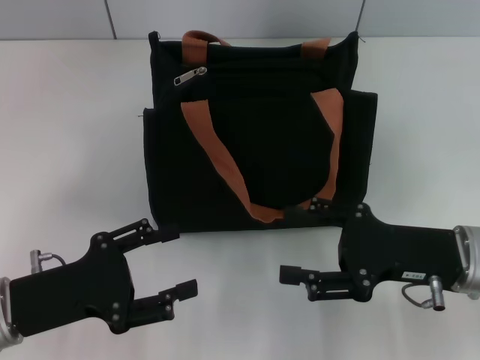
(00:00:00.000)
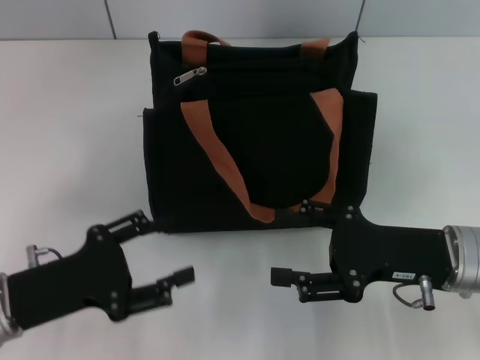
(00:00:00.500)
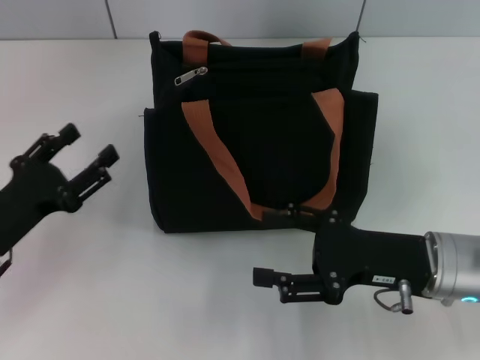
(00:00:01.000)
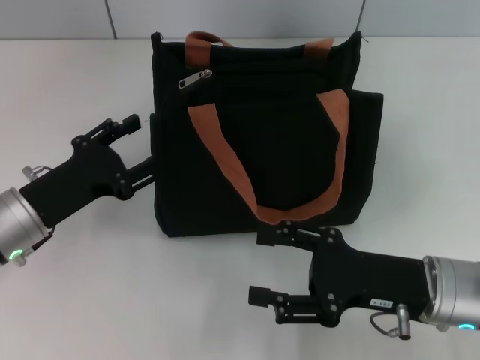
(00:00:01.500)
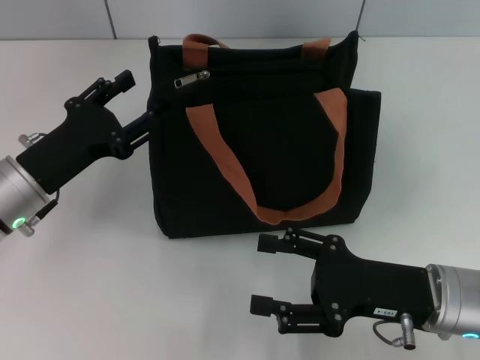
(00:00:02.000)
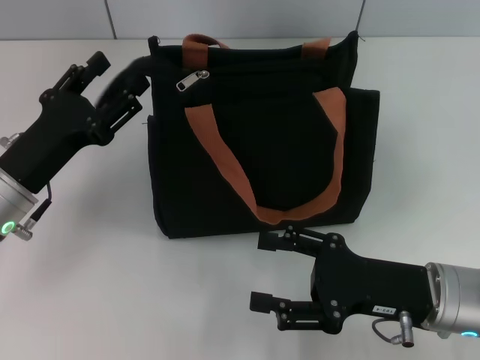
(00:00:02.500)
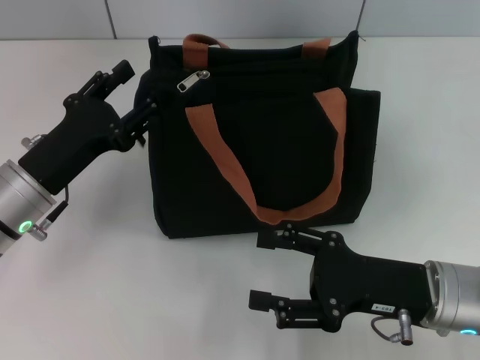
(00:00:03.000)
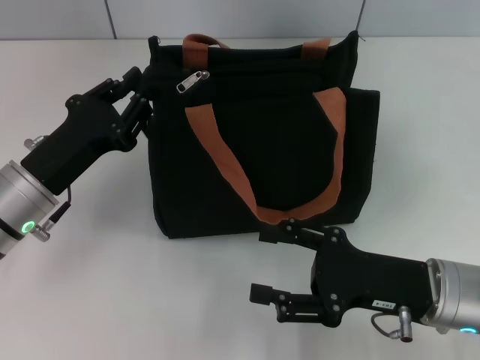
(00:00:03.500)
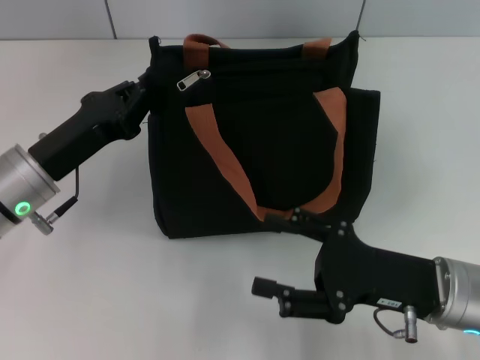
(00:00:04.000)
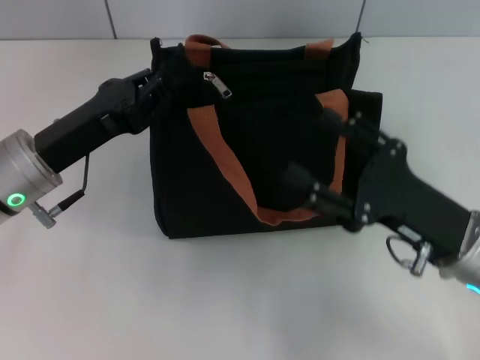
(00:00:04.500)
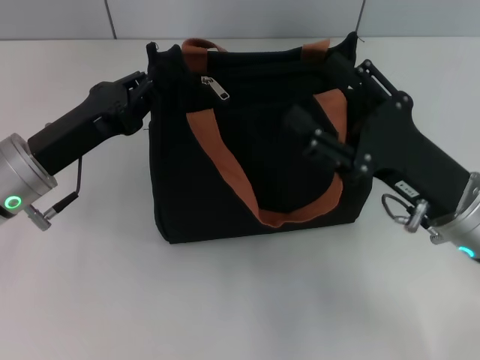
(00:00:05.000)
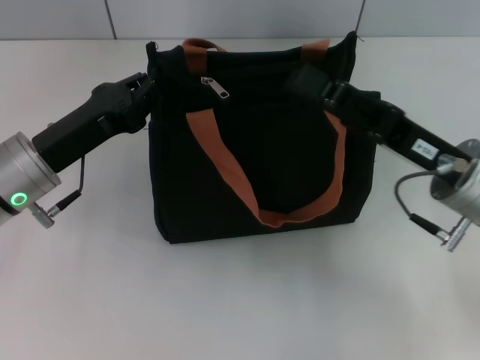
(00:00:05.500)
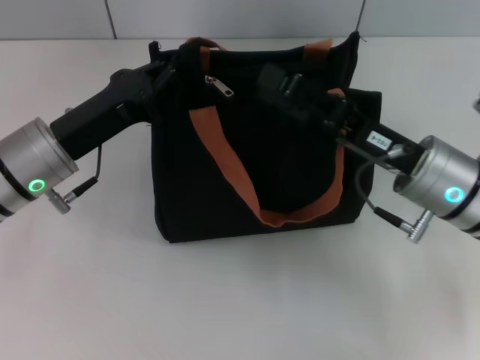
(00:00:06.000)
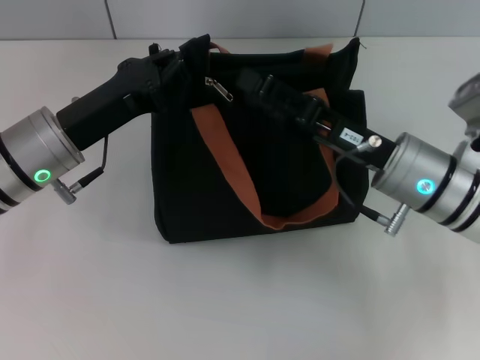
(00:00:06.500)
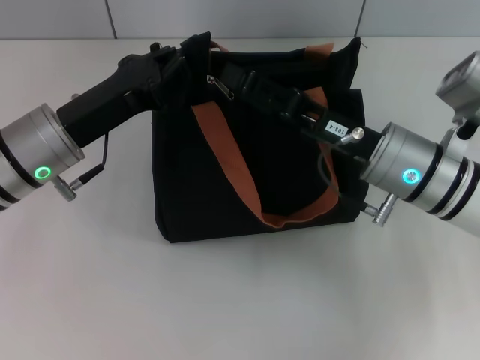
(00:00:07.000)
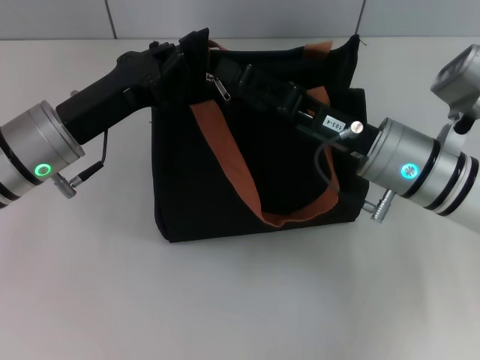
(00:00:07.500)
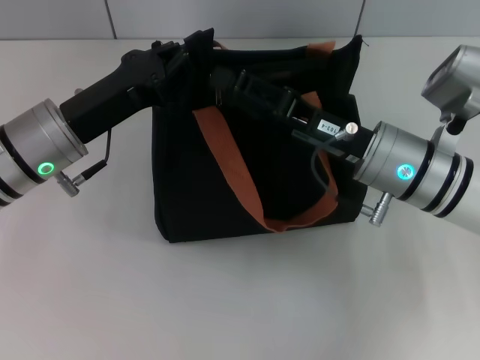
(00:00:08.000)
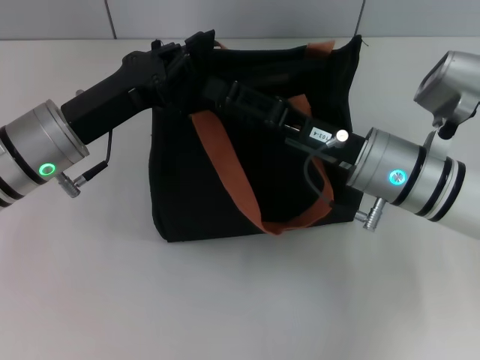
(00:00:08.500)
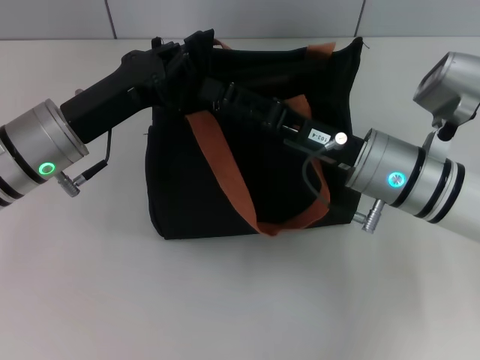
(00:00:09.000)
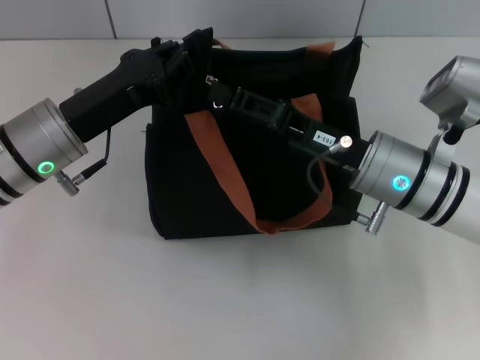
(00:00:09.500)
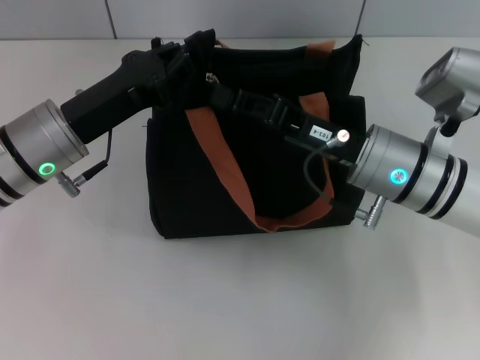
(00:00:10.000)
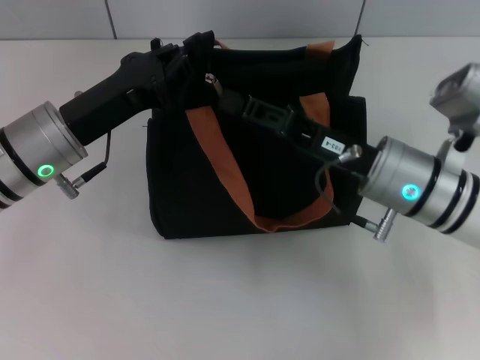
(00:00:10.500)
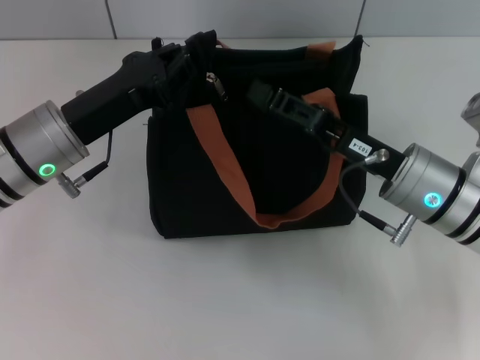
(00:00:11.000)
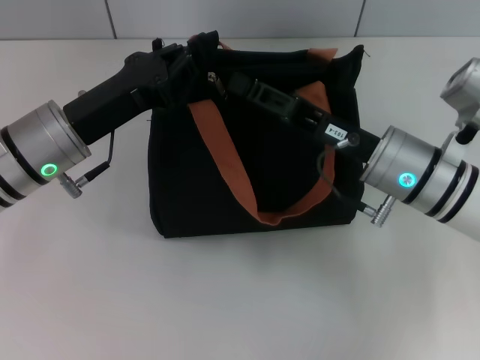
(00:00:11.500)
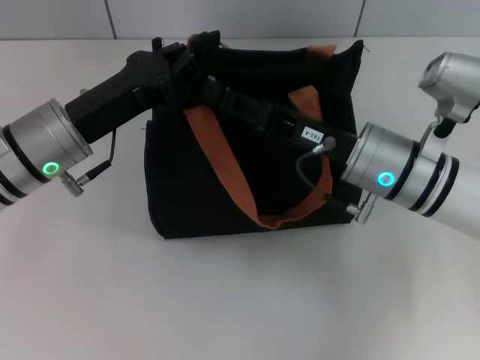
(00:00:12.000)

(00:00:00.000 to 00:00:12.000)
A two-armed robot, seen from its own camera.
00:00:00.000 - 00:00:02.000: The left gripper is displaced forward by roughly 10 cm.
00:00:02.000 - 00:00:04.000: The left gripper closes its fingers.
00:00:04.000 - 00:00:06.000: The right gripper goes approximately 10 cm forward.
00:00:06.000 - 00:00:08.000: The grippers make only small movements.
00:00:08.000 - 00:00:10.000: The right gripper closes.
00:00:10.000 - 00:00:12.000: The grippers move only a little.

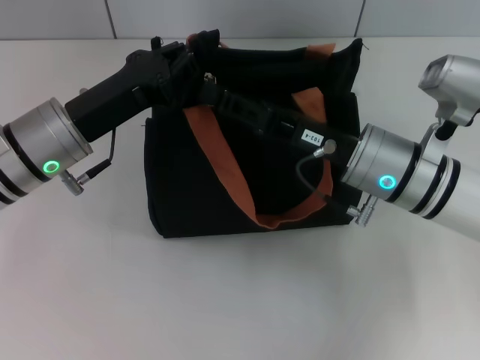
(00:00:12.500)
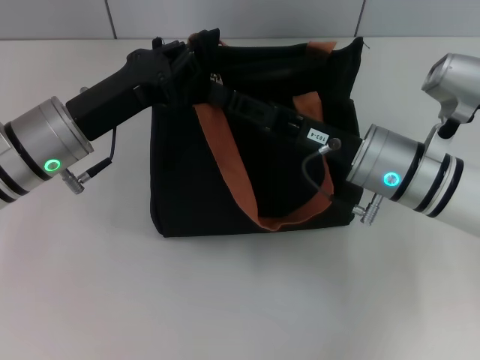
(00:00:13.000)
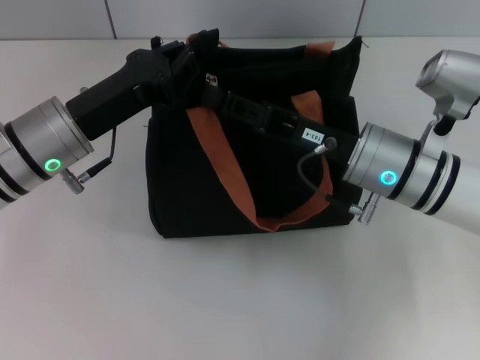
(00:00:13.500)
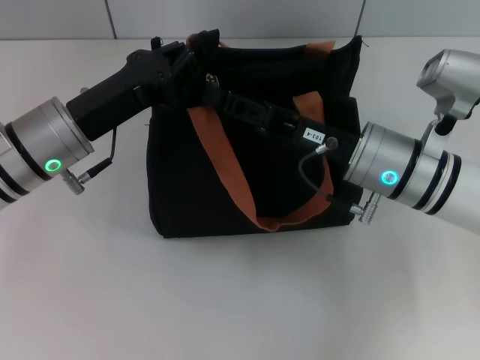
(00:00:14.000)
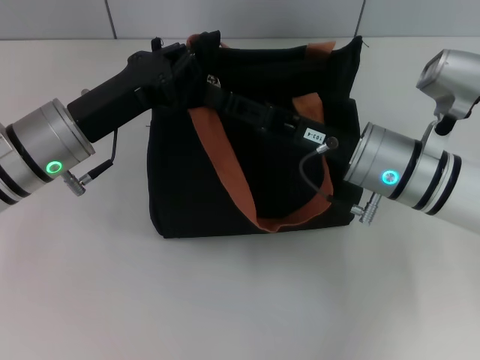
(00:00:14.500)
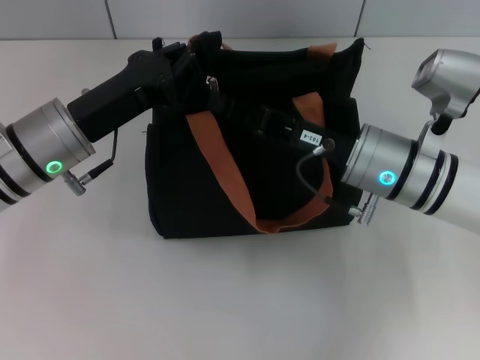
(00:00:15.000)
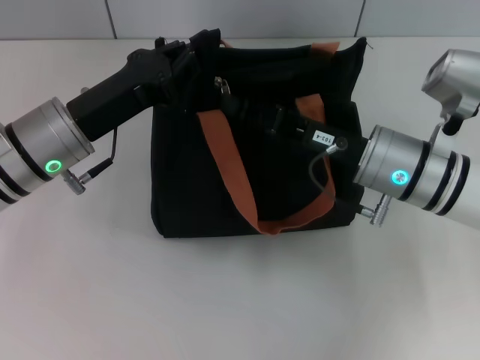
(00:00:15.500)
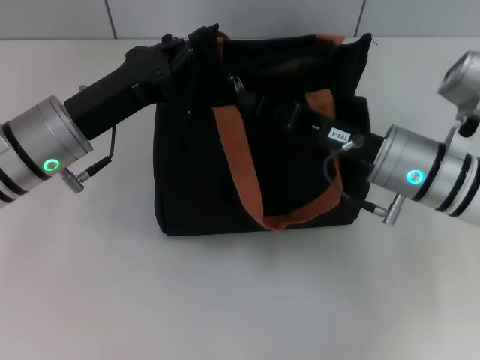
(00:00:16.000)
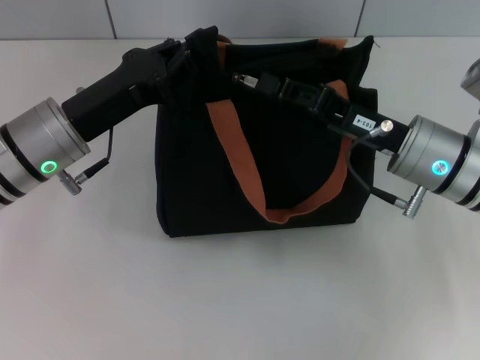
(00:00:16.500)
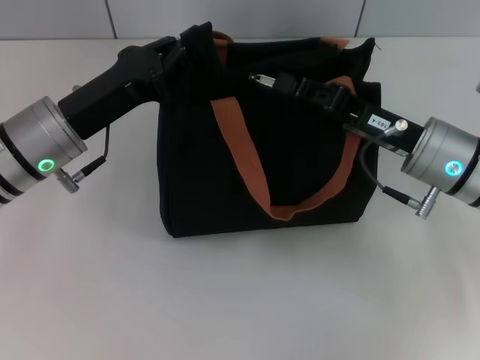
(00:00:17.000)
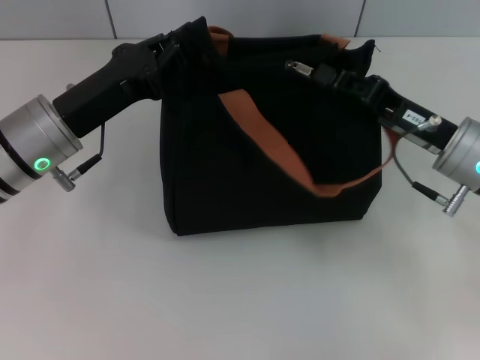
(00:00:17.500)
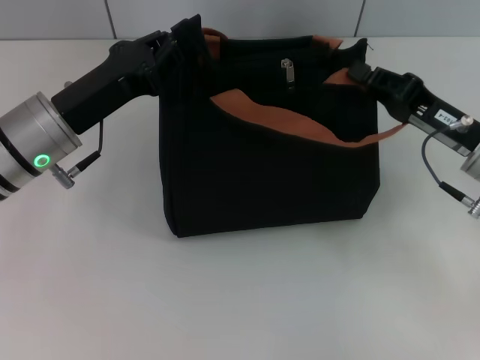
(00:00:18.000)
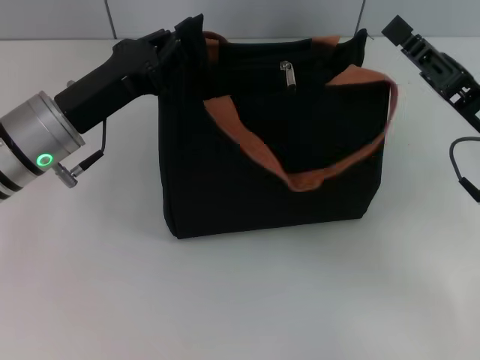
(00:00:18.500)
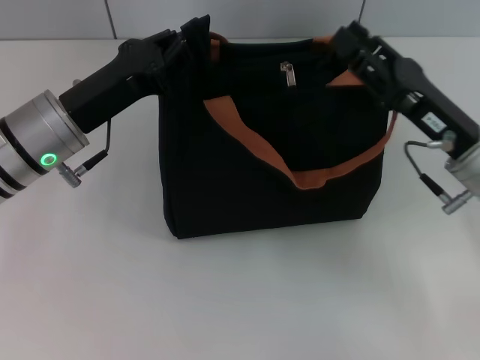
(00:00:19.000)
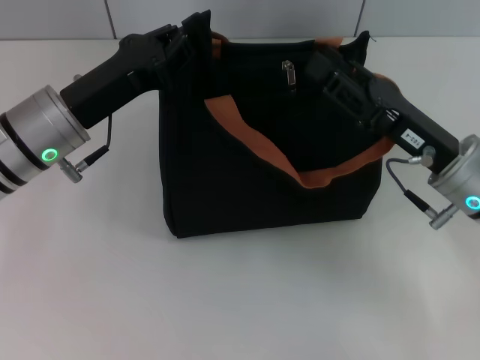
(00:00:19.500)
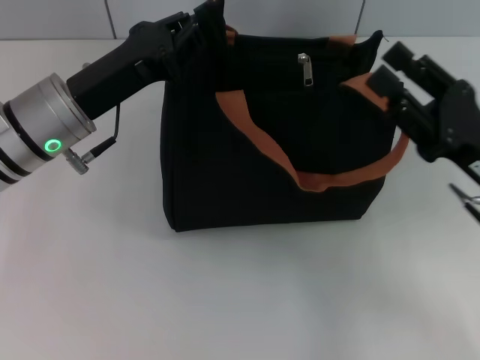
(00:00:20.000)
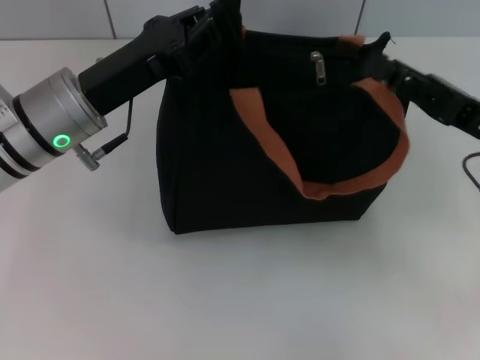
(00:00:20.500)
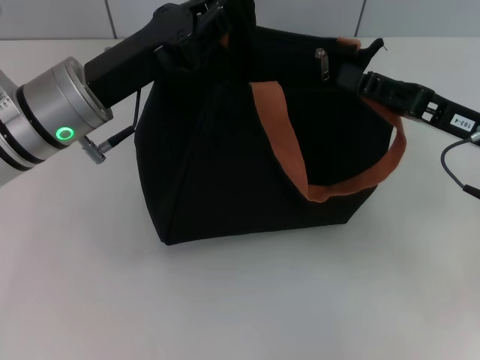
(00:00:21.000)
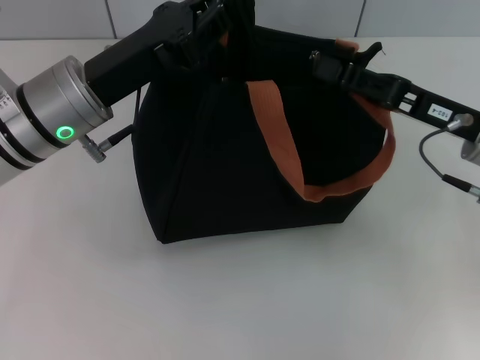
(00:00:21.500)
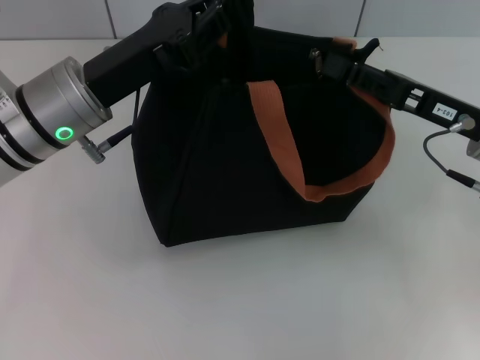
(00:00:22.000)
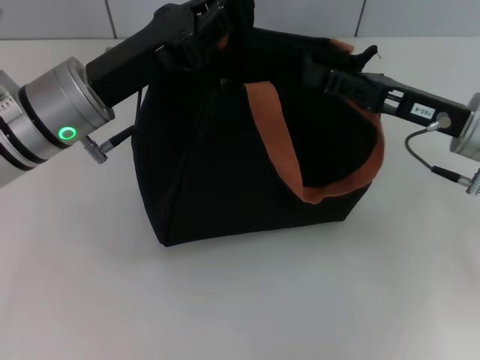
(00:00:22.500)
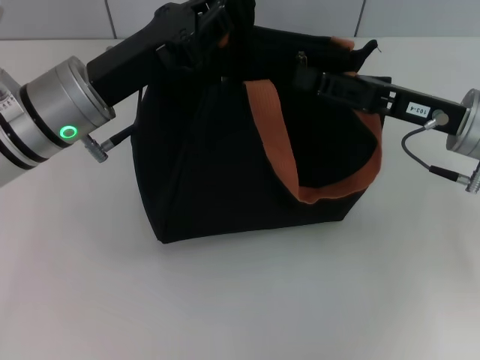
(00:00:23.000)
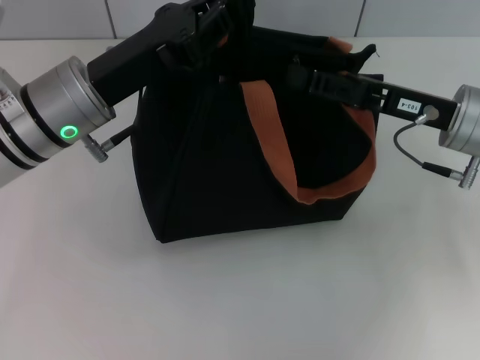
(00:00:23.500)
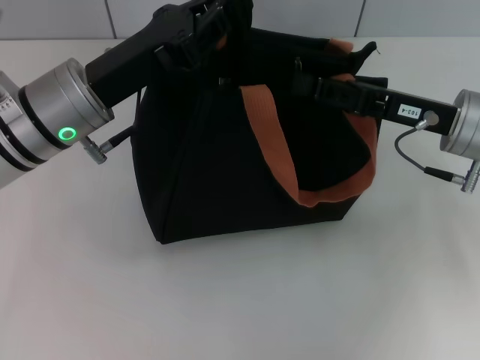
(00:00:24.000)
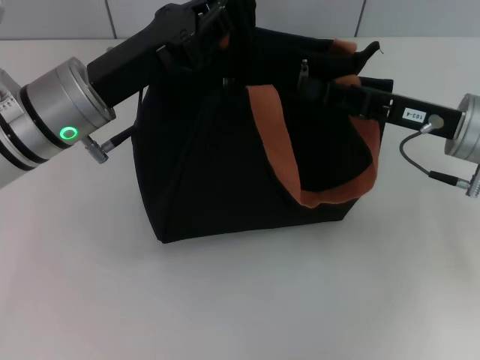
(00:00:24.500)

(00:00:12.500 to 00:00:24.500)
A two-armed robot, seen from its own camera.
00:00:12.500 - 00:00:14.500: Both grippers stay about where they are.
00:00:14.500 - 00:00:16.500: The grippers stay close to where they were, moving slightly.
00:00:16.500 - 00:00:18.500: The right gripper moves to the right, some 5 cm.
00:00:18.500 - 00:00:20.500: The right gripper opens.
00:00:20.500 - 00:00:22.500: The right gripper moves roughly 5 cm.
00:00:22.500 - 00:00:24.500: The right gripper closes its fingers.

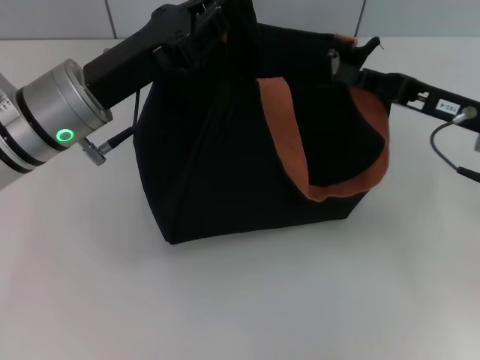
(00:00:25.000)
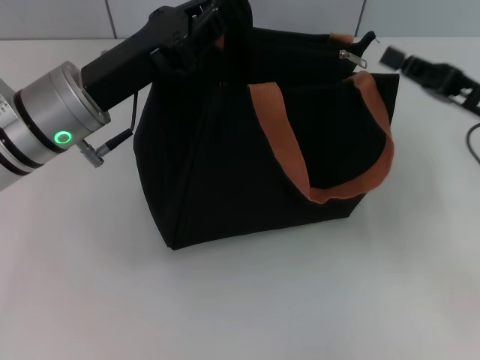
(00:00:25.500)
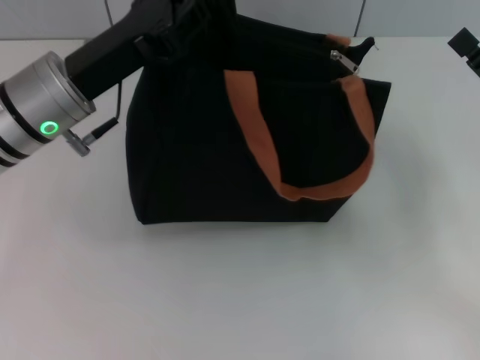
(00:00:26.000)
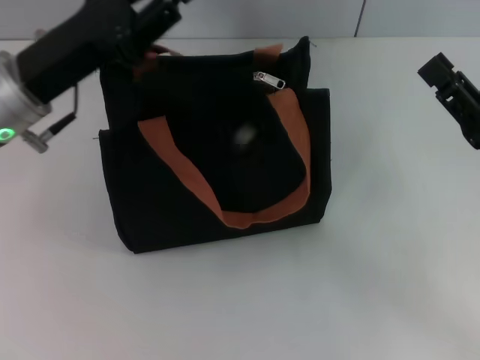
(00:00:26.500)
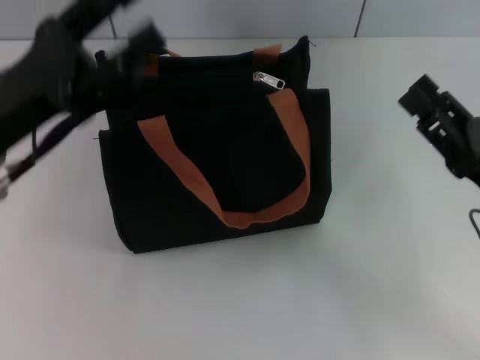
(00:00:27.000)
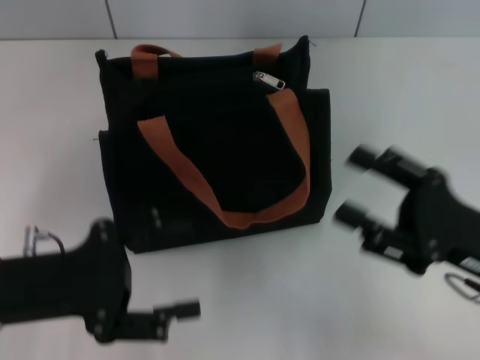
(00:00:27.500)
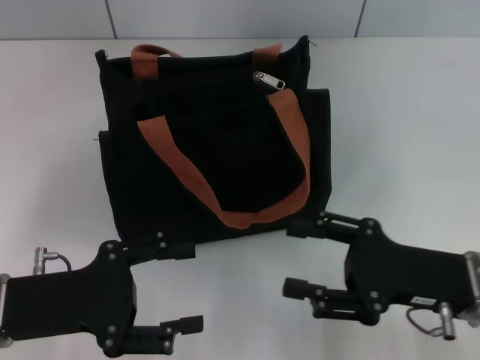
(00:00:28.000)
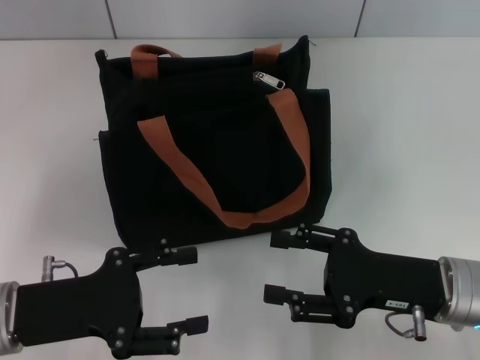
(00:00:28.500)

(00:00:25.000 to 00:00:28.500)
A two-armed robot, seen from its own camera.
Step, 00:00:25.500 - 00:00:26.500: Grab the zipper with your left hand.
00:00:25.000 - 00:00:27.000: The right gripper travels backward by approximately 10 cm, and opens its fingers. Meanwhile the left gripper heads to the left and backward, covering about 10 cm, and opens its fingers.
00:00:27.000 - 00:00:28.500: The right gripper travels to the left by about 5 cm; the left gripper travels downward and backward by roughly 10 cm.
